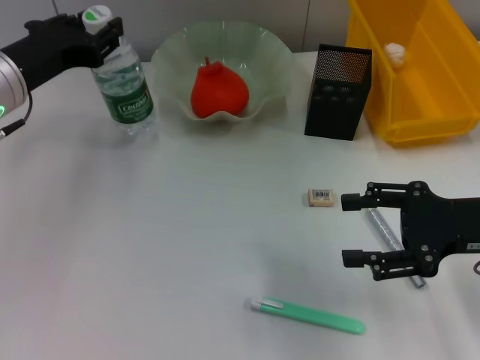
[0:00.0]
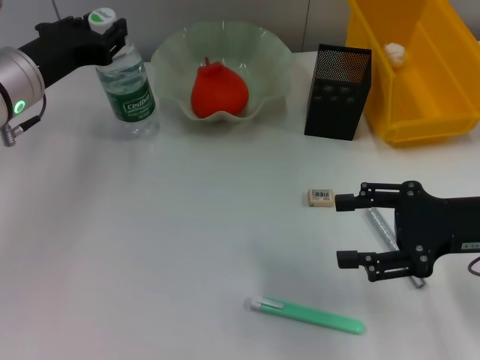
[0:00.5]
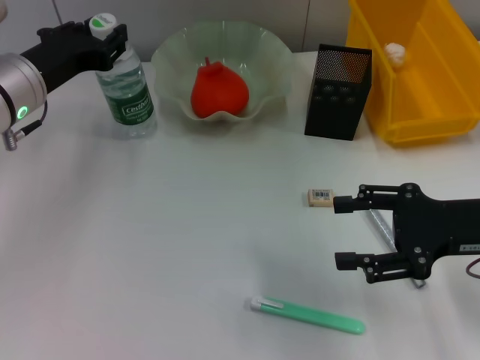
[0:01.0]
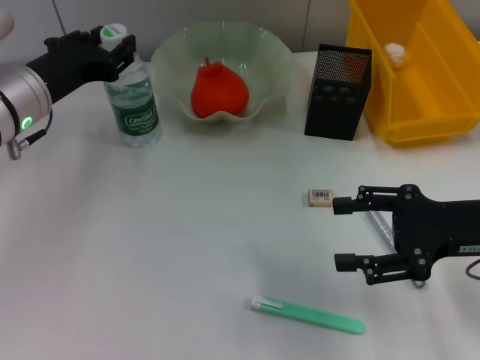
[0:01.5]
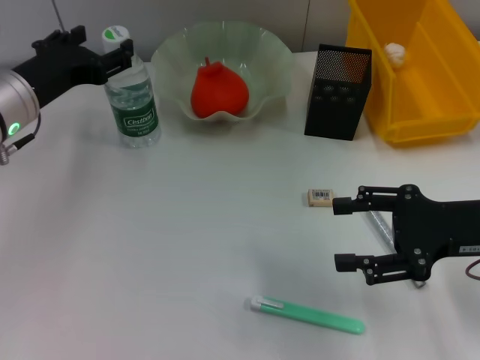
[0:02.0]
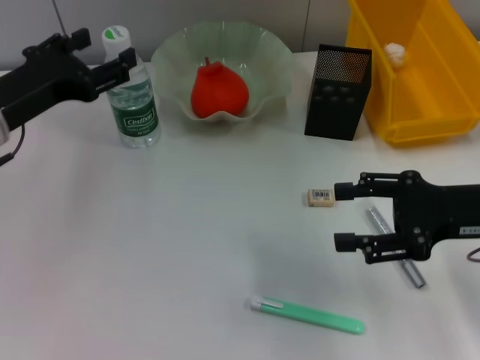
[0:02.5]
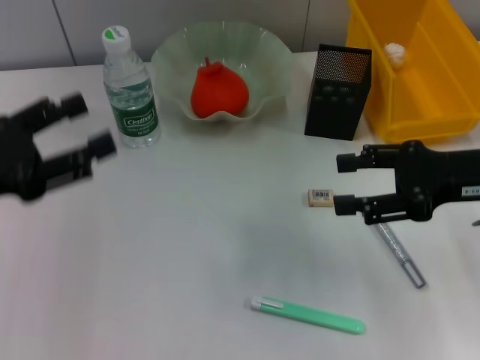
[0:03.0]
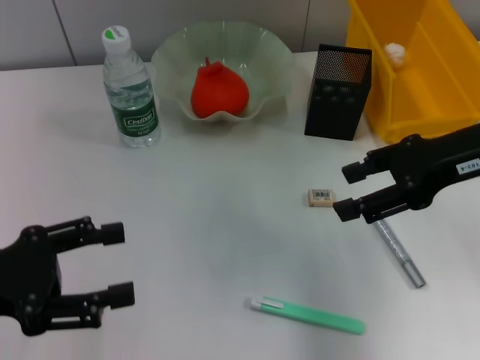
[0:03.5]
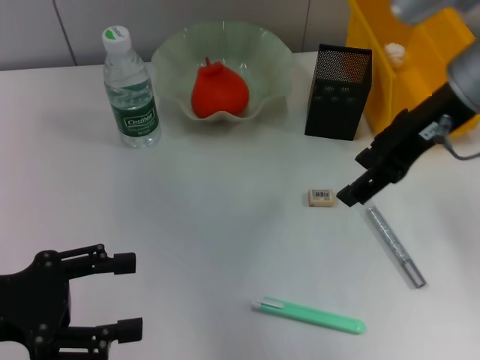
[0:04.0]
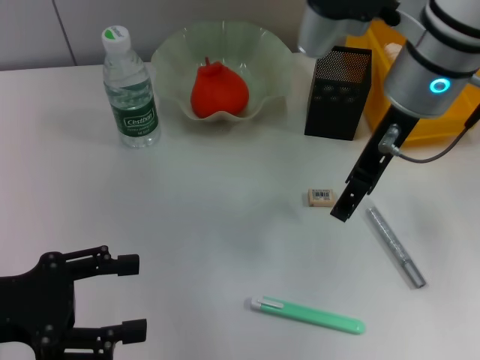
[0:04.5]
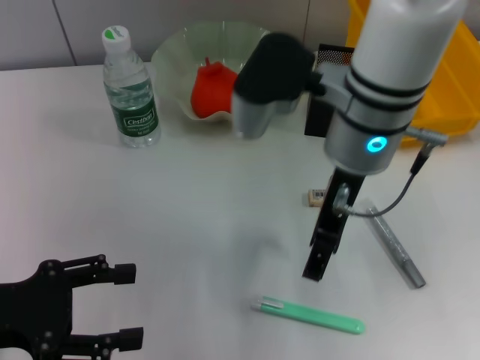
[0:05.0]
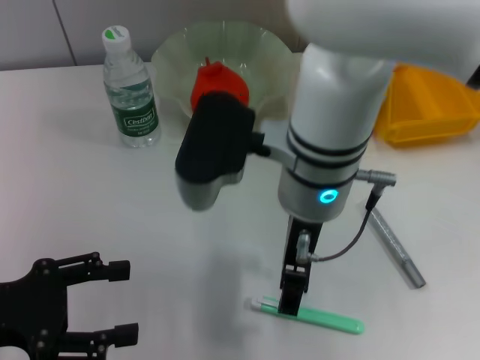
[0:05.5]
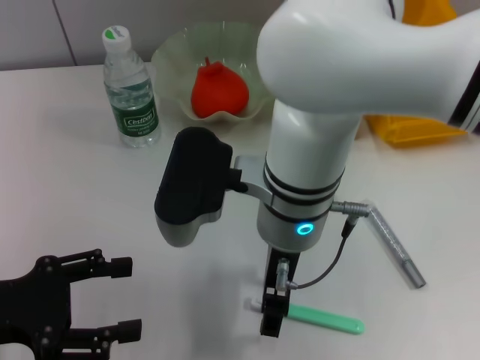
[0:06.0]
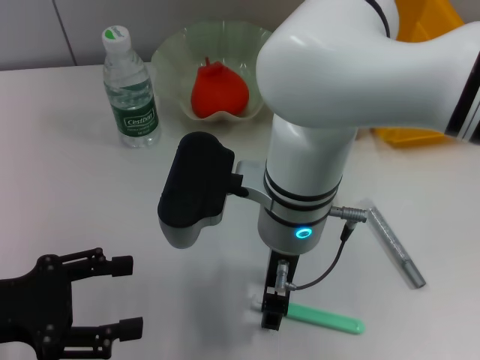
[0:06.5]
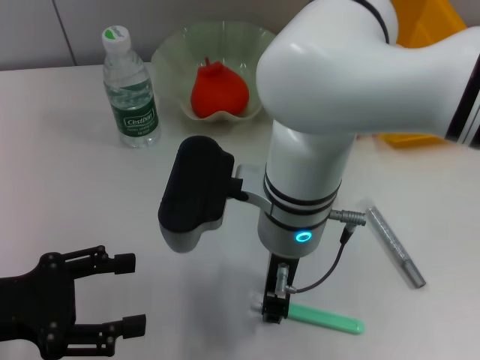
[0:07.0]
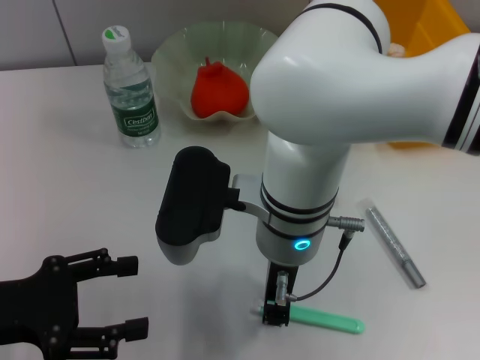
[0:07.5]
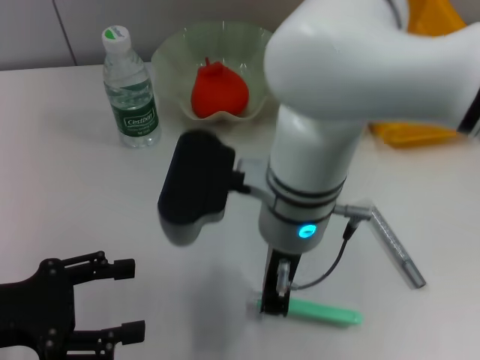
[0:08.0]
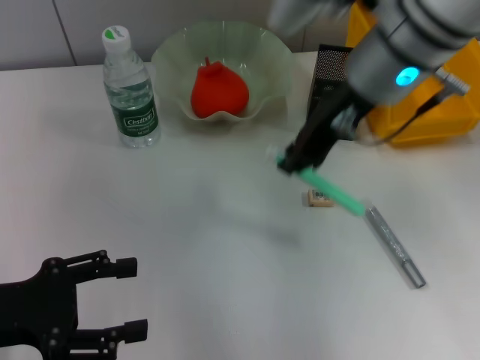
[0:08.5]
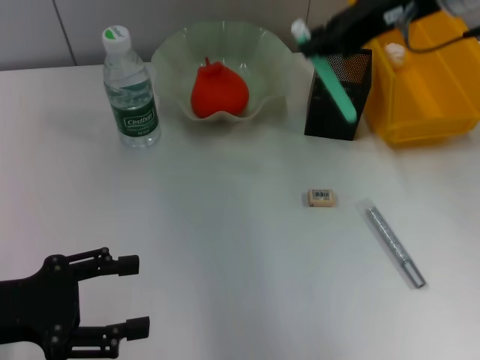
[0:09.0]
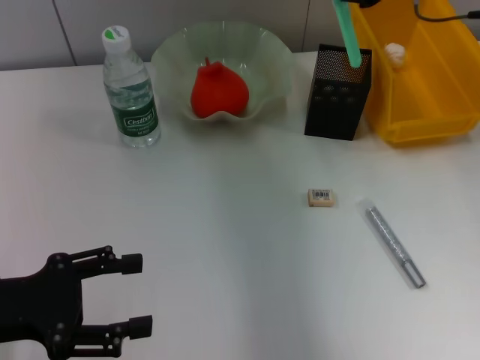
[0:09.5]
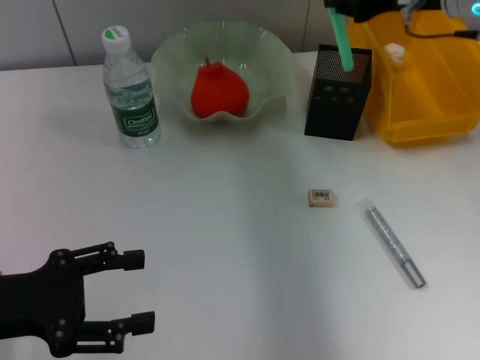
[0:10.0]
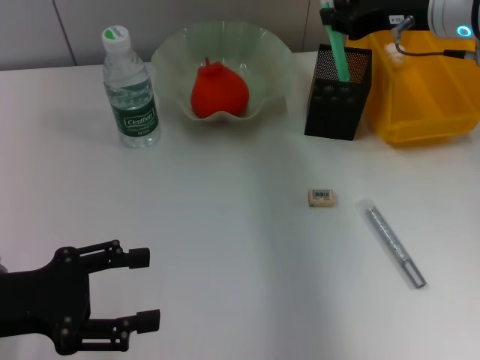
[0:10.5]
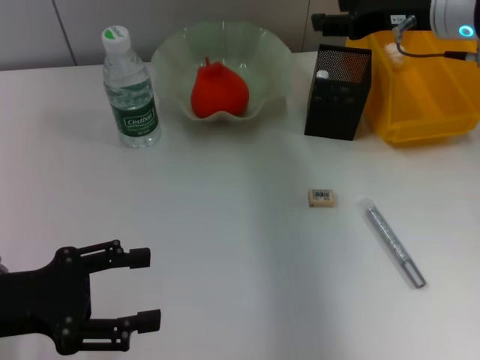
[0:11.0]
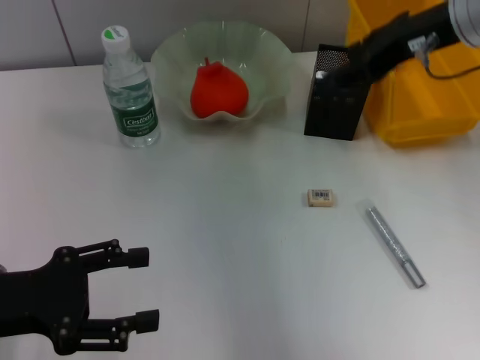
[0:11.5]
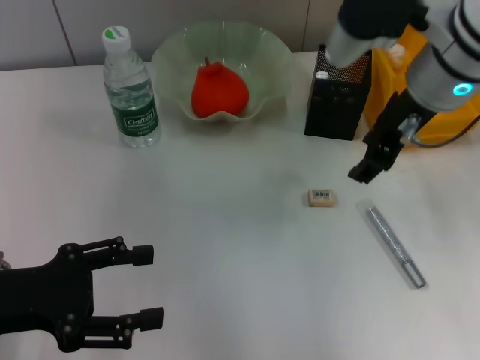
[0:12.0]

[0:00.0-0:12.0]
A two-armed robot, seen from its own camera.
Step, 0:02.0 to 0:07.5: Grab the blue utility knife with the right hand.
Step, 0:08.0 to 0:10.5: Place the blue utility knife into the pen holder with the right hand.
0:00.0 to 0:02.0: The left gripper opens its fingers.
0:02.0 to 0:04.0: The right gripper goes some 20 cm upward, forward and to the left; the left gripper moves backward and to the left, some 15 cm.
0:04.0 to 0:06.0: The right gripper moves to the left and downward, roughly 20 cm.
0:06.0 to 0:08.0: The right gripper closes up.
0:08.0 to 0:10.0: The right gripper shifts roughly 25 cm to the right and forward.
0:10.0 to 0:12.0: The right gripper heads to the left and backward, covering approximately 10 cm, and opens its fingers.

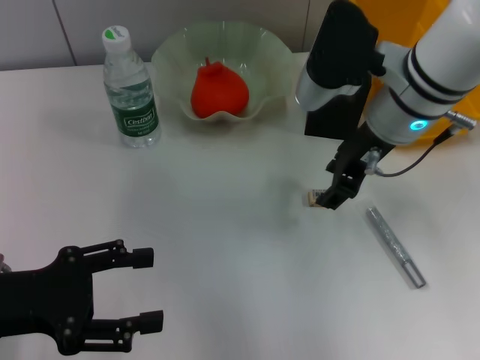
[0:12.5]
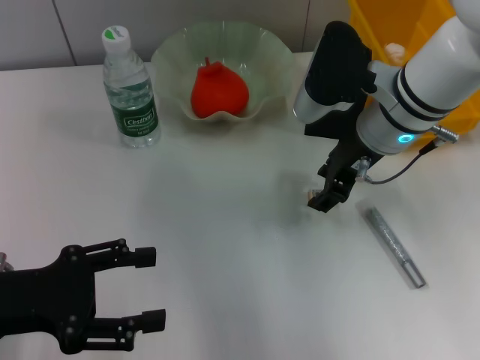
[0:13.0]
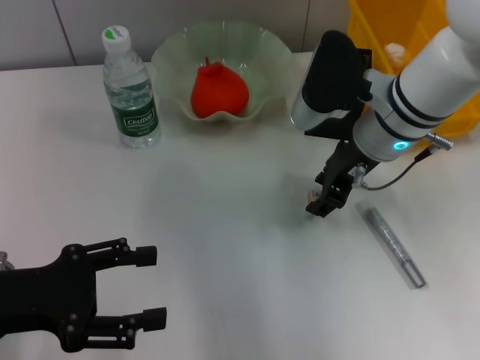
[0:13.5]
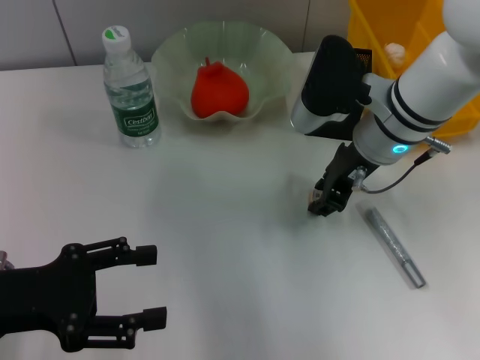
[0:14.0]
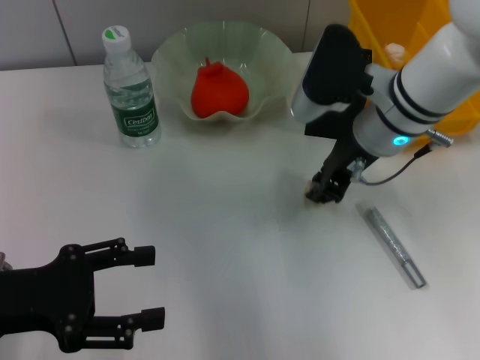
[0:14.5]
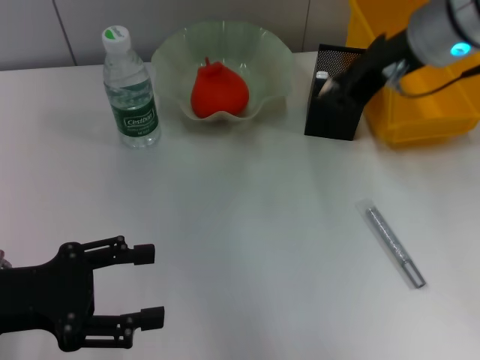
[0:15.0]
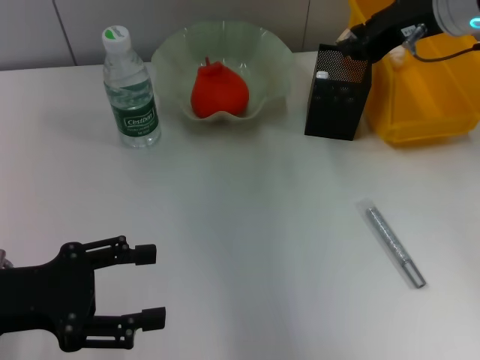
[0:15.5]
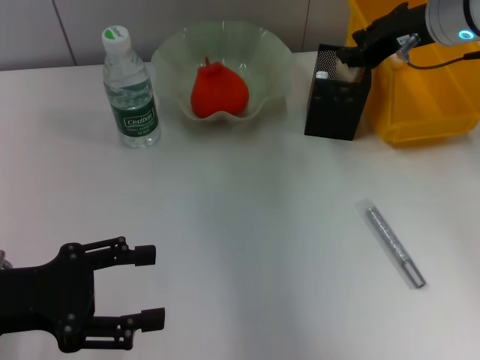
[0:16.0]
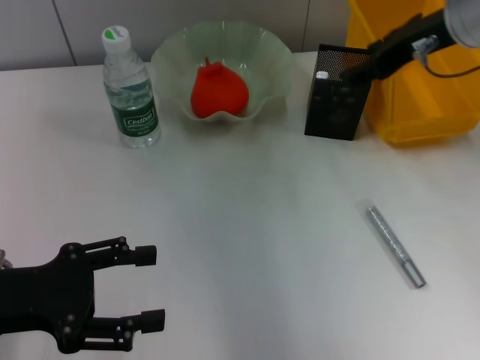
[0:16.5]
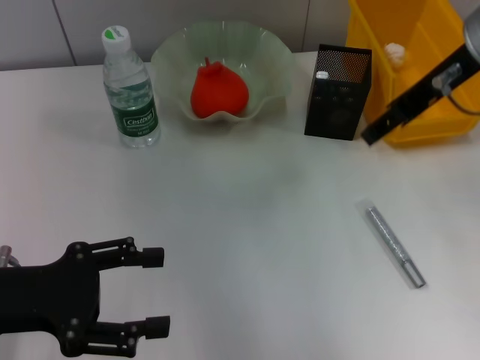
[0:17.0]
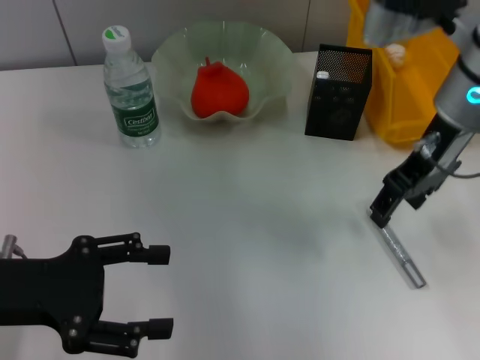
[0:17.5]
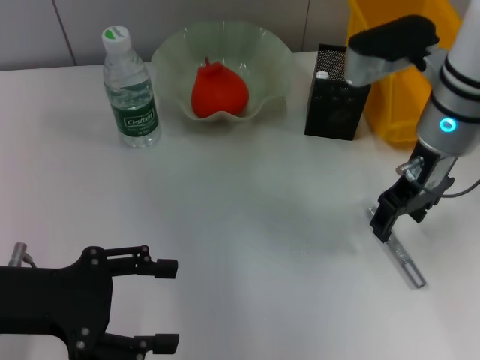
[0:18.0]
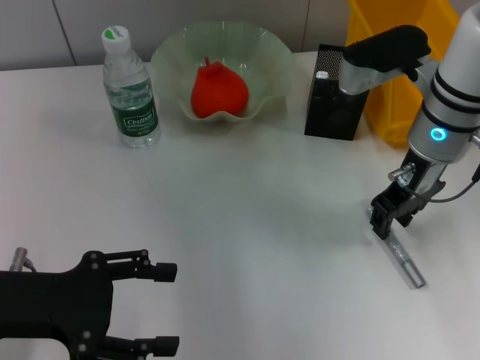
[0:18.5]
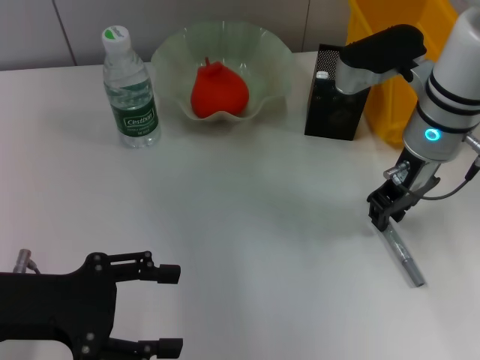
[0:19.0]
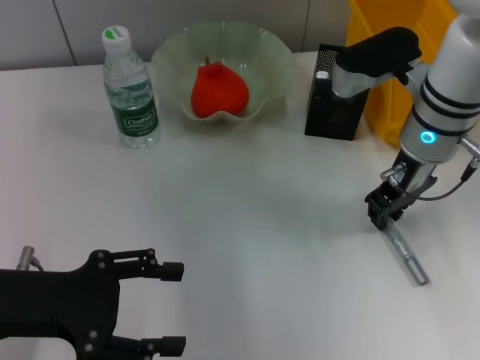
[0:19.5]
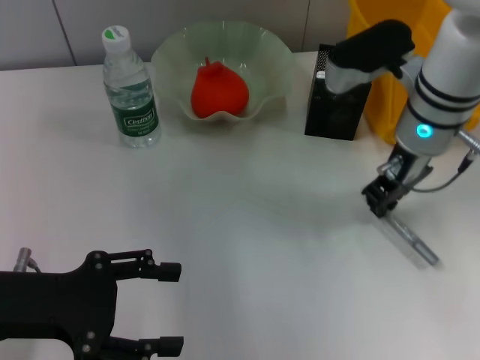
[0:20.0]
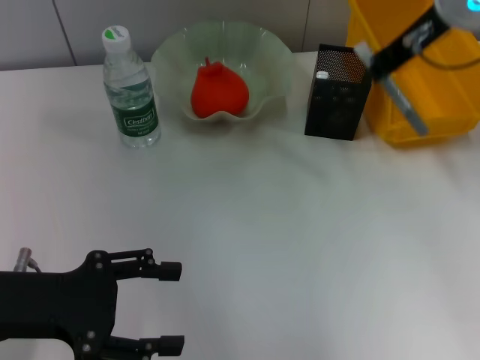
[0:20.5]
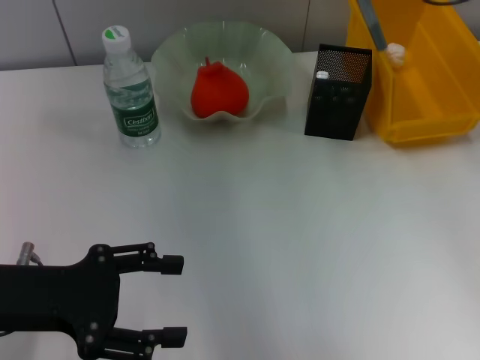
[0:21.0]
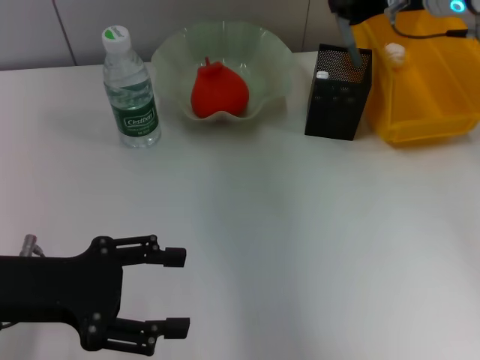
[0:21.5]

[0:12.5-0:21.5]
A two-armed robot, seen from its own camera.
Step, 0:14.5 to 0:16.0: Put the eraser into the pen holder with the right hand.
Step, 0:16.5 to 0:19.5: Grab the gray glue with the right hand.
0:12.5 to 0:14.5: The right gripper closes its fingers.
0:14.5 to 0:17.0: The right gripper goes about 15 cm upward and to the right, and opens its fingers.
0:17.0 to 0:19.5: The right gripper travels downward by approximately 10 cm, and closes its fingers.
0:19.5 to 0:21.5: The right gripper goes about 10 cm upward.

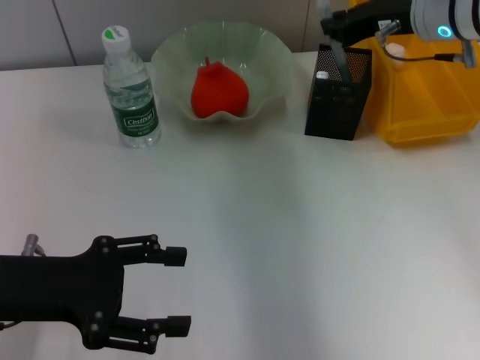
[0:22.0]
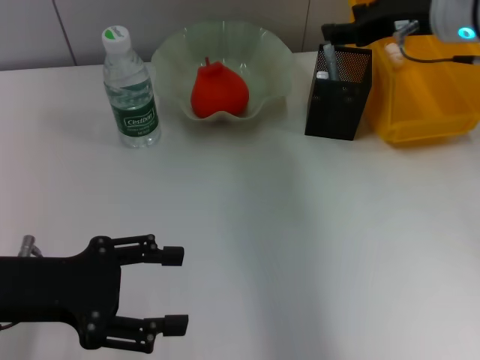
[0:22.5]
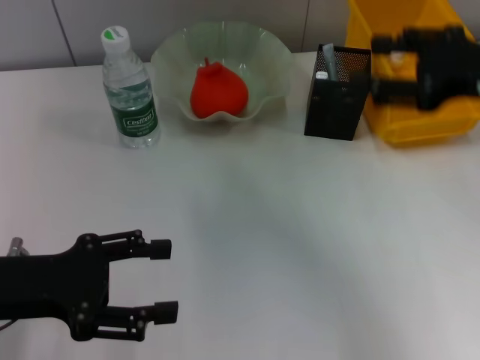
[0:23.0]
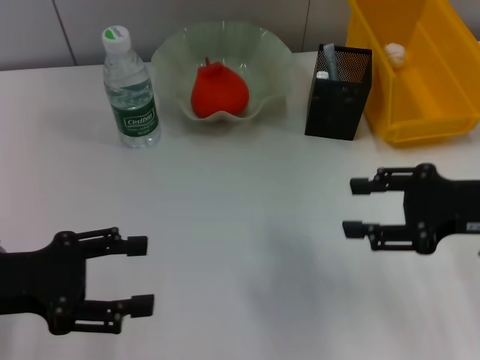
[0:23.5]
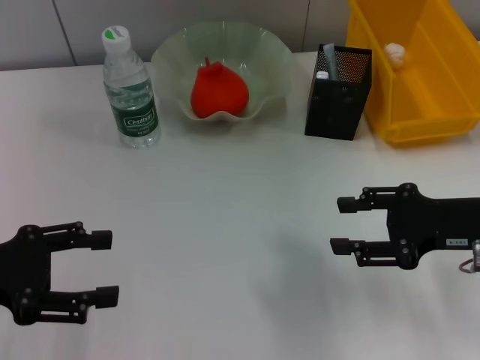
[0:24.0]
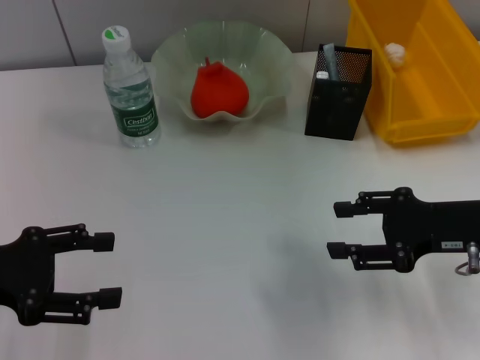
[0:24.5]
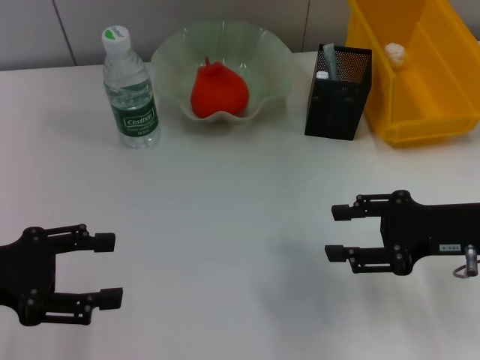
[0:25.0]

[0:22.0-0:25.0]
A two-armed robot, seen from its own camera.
0:22.0 to 0:23.5: The right gripper moves backward, roughly 15 cm, and opens up.
0:23.5 to 0:25.0: The grippers stay close to where they were, moving slightly.
